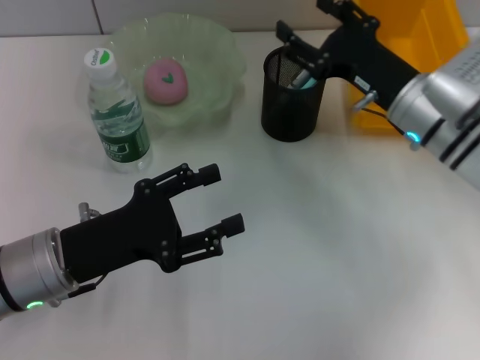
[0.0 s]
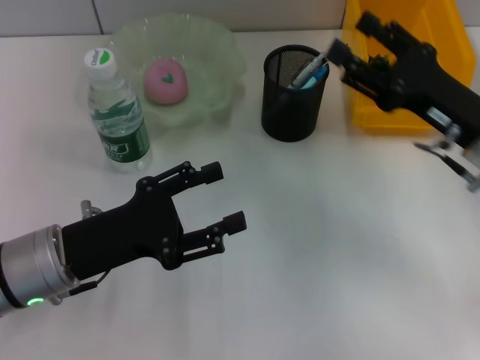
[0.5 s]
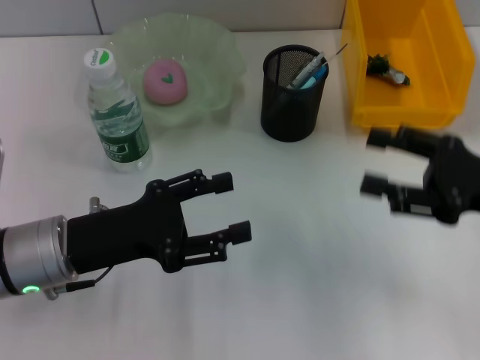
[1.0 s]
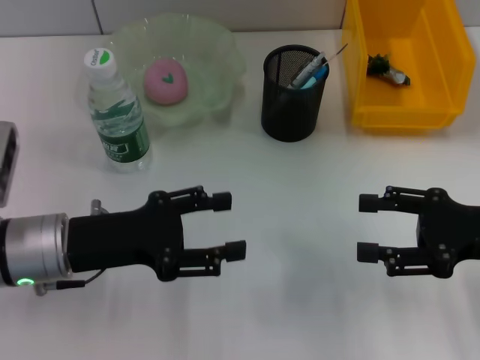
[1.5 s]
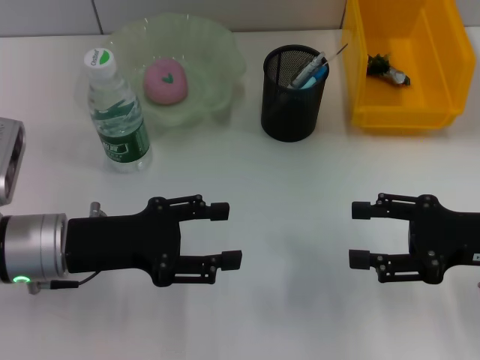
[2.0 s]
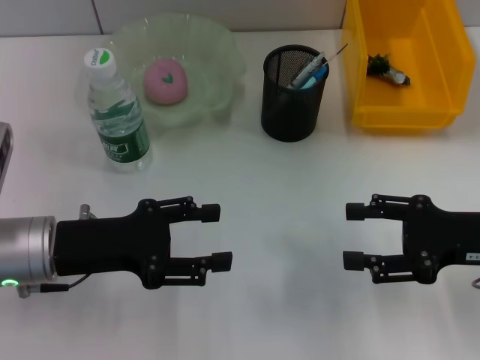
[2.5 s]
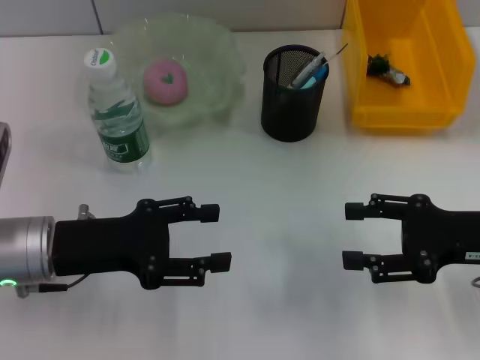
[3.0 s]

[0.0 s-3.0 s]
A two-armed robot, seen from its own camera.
0.0 to 1.5 s: The right gripper shifts roughly 15 cm to the right and backward.
1.5 to 3.0 s: The two grippers keep their place.

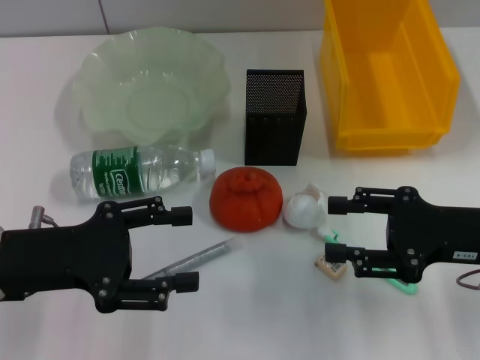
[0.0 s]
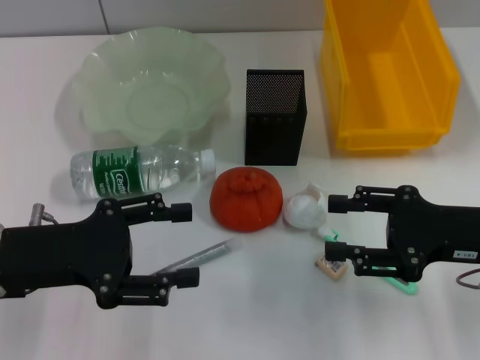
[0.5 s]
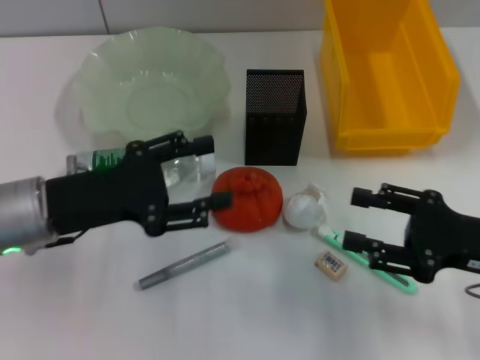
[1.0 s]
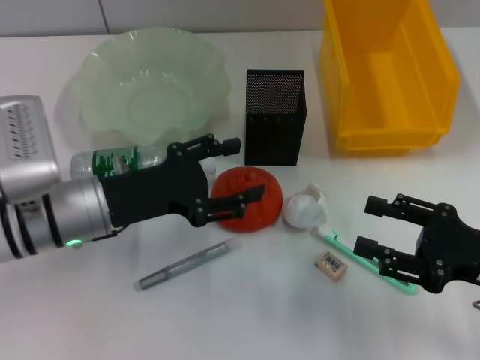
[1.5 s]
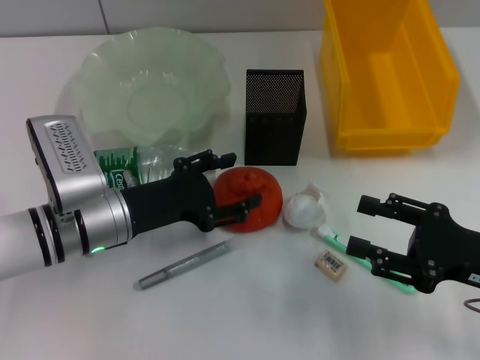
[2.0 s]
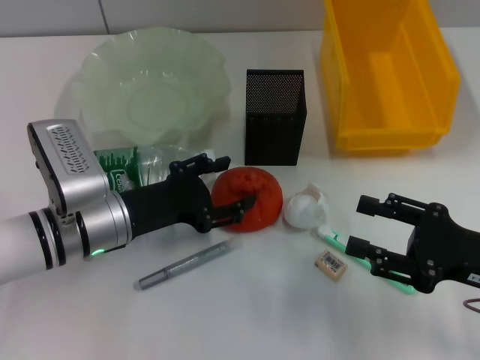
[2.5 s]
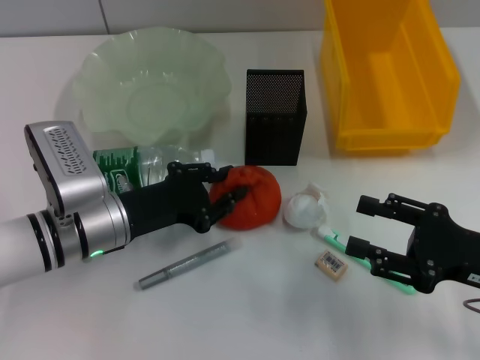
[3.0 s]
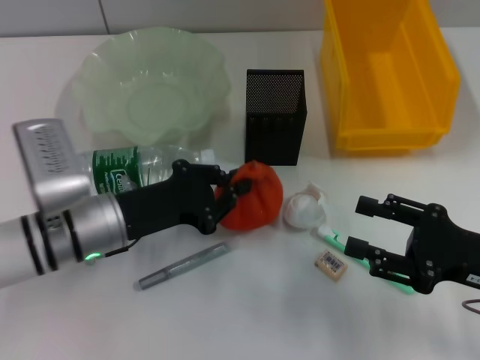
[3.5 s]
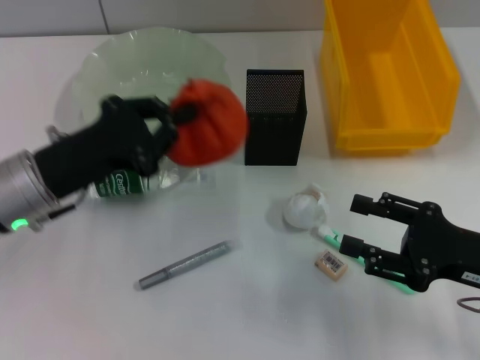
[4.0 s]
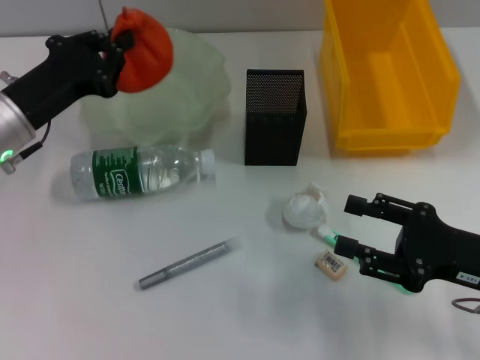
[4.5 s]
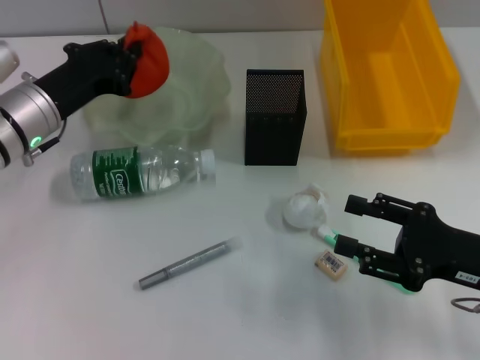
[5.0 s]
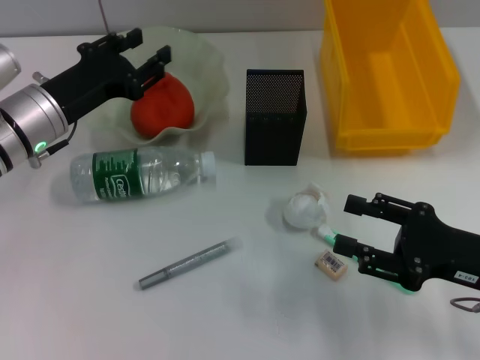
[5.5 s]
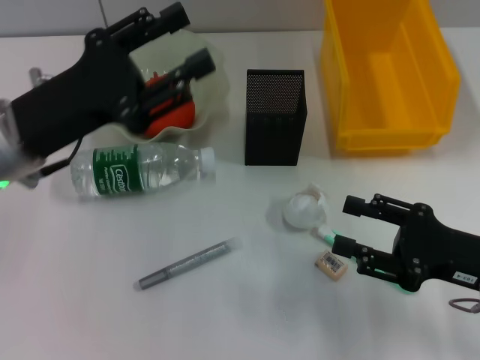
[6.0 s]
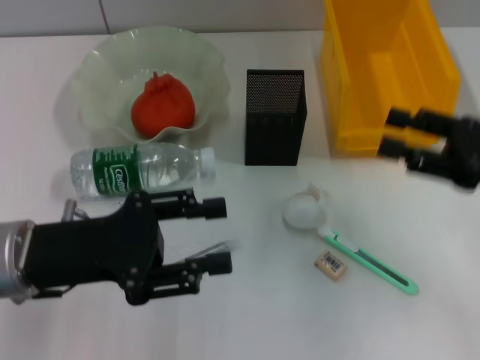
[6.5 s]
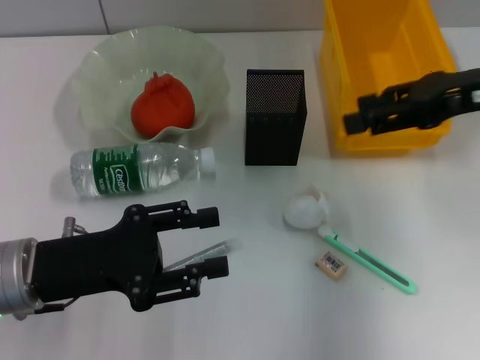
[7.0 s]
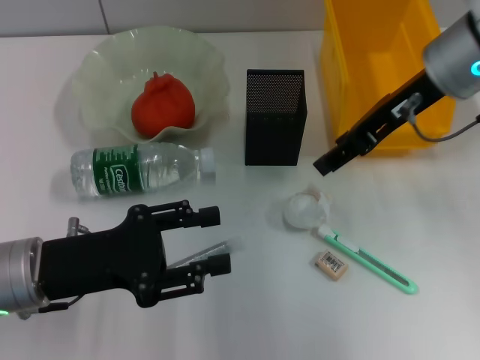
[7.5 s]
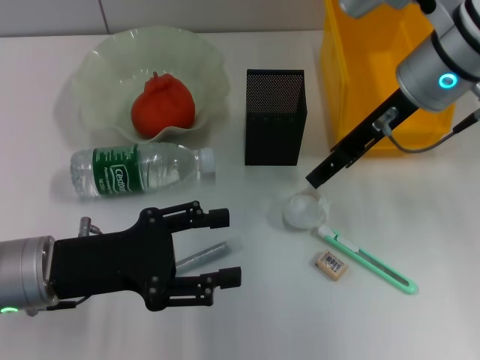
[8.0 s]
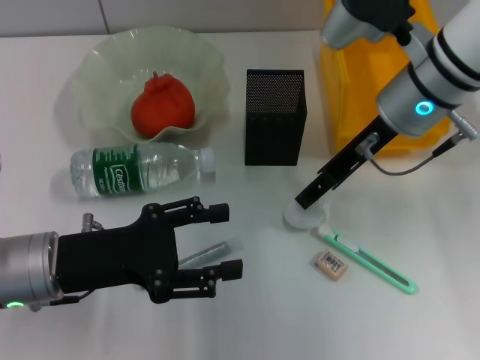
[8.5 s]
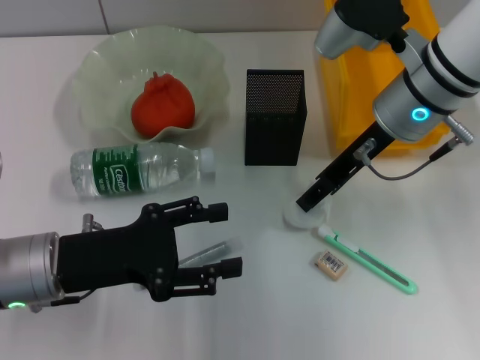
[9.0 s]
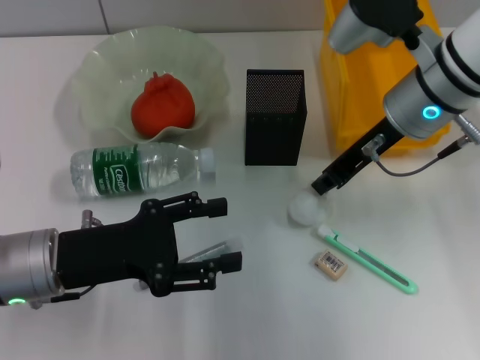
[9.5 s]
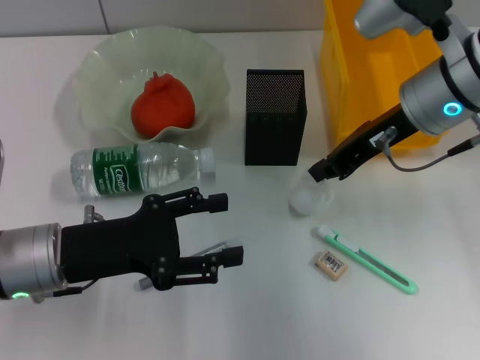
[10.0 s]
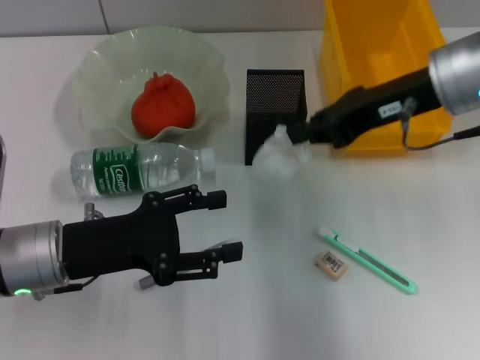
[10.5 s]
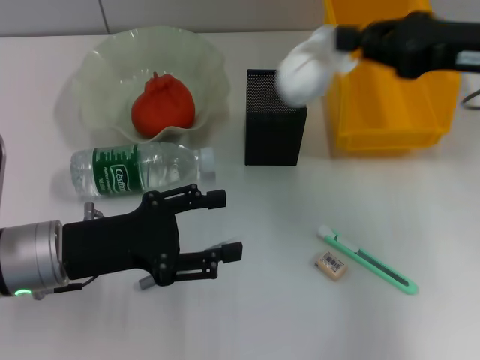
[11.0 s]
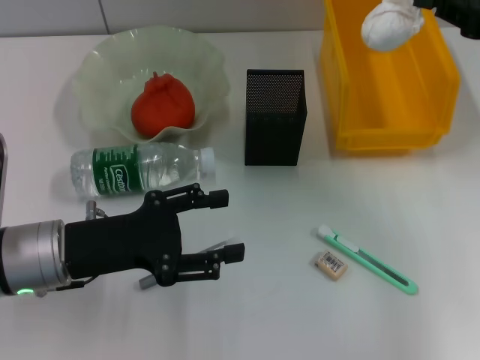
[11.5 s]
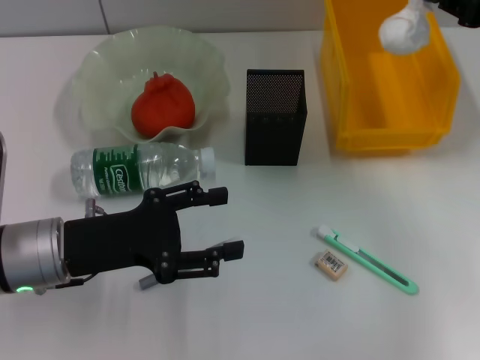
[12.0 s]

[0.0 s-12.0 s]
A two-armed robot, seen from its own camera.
Step, 0.0 to 3.0 s: Grab the orange with the left hand.
Step, 3.5 to 5.0 s: Place the orange into the fruit bowl with the left hand.
Step, 5.5 to 9.5 s: Grab the paper ball with the right hand.
0.0 to 2.0 s: The left gripper travels to the right, downward and forward by roughly 10 cm; the right gripper moves roughly 5 cm.
2.0 to 4.0 s: The left gripper is displaced upward by approximately 5 cm, and closes.
4.0 to 6.0 s: The left gripper reaches roughly 10 cm forward, then returns, and opens.
6.0 to 8.0 s: The right gripper travels forward, upward and to the left by about 25 cm; the left gripper shifts approximately 10 cm downward and backward.
8.0 to 10.0 s: The right gripper closes up.
10.0 to 12.0 s: The right gripper goes about 15 cm to the right.

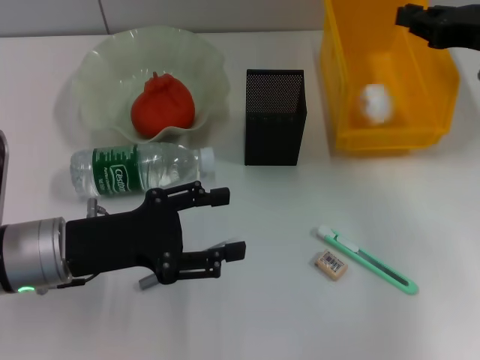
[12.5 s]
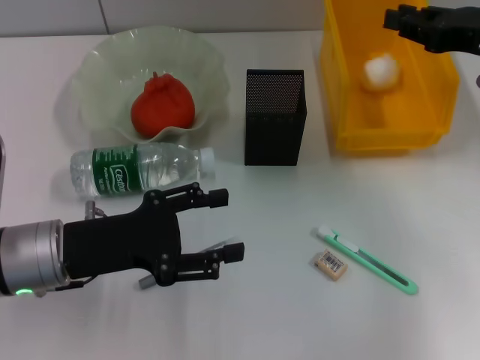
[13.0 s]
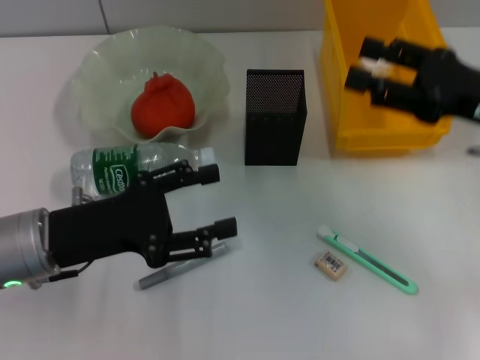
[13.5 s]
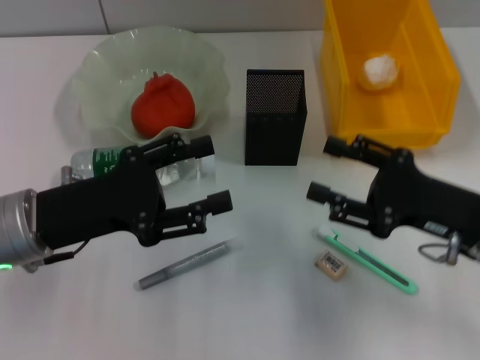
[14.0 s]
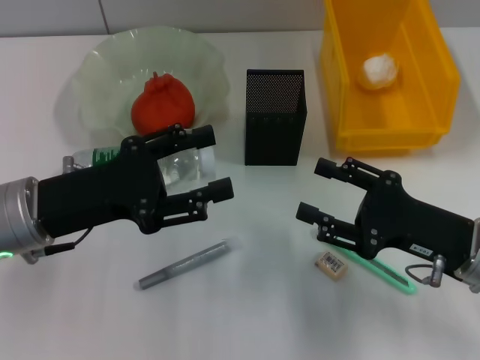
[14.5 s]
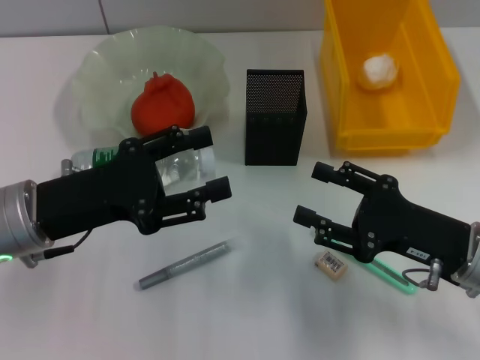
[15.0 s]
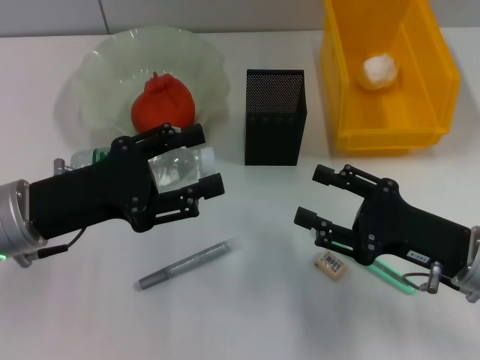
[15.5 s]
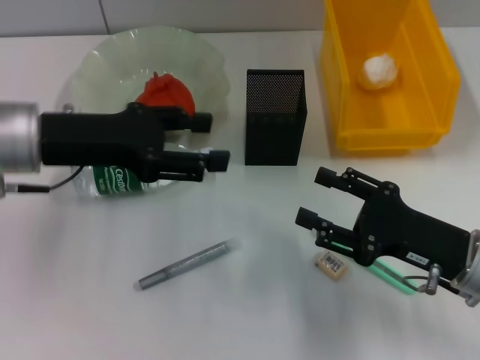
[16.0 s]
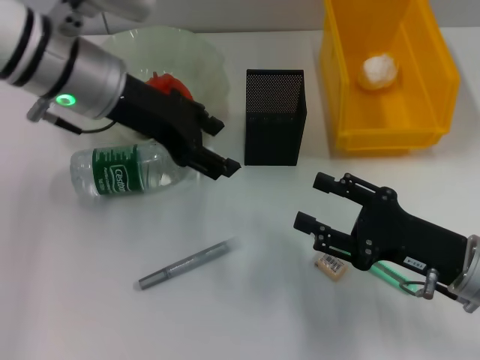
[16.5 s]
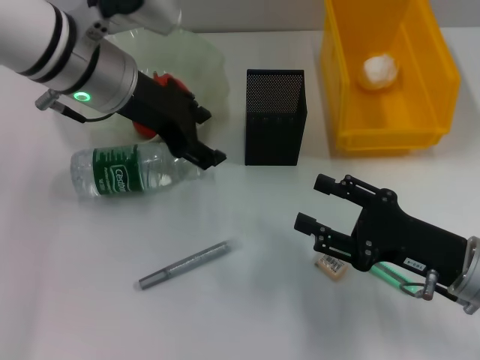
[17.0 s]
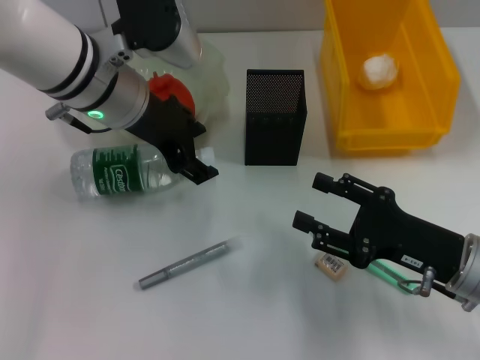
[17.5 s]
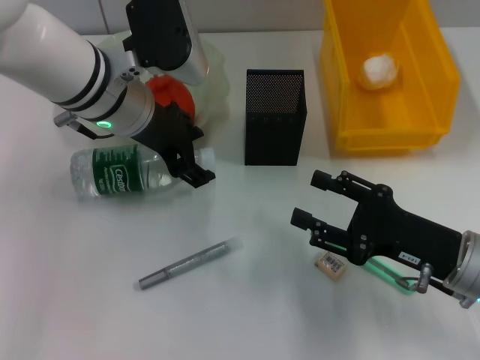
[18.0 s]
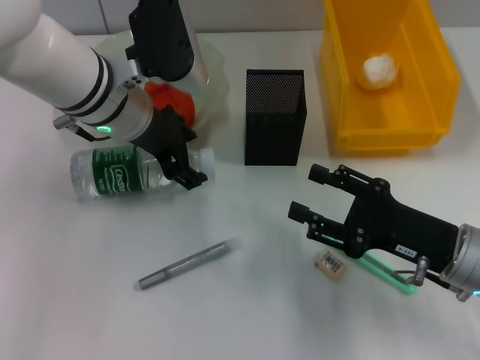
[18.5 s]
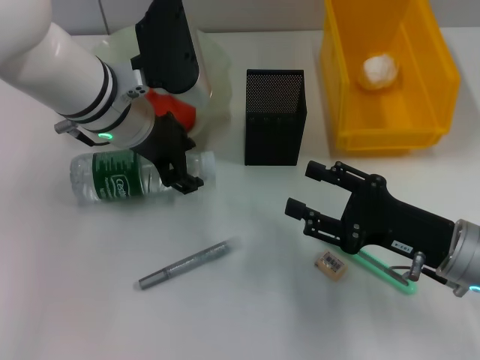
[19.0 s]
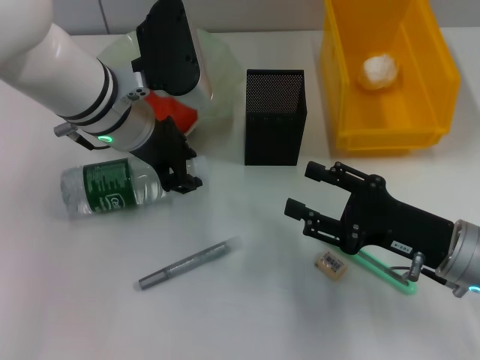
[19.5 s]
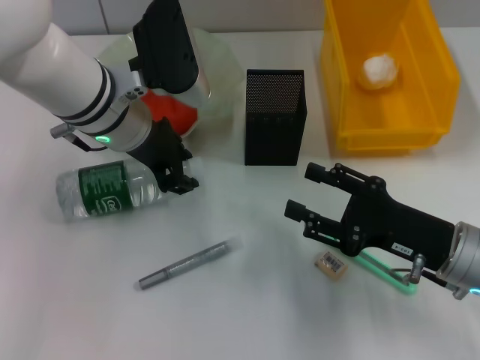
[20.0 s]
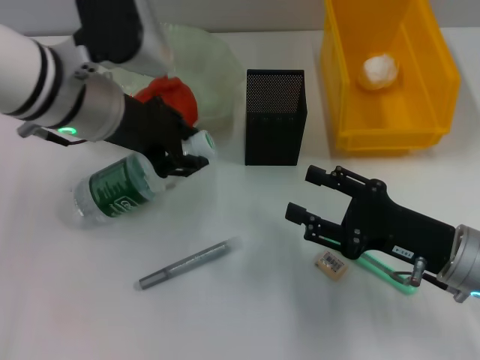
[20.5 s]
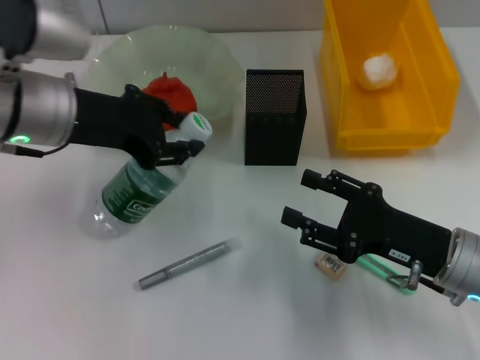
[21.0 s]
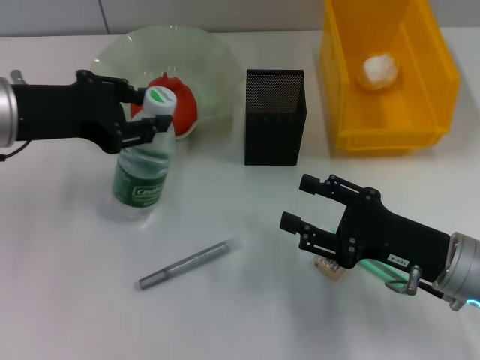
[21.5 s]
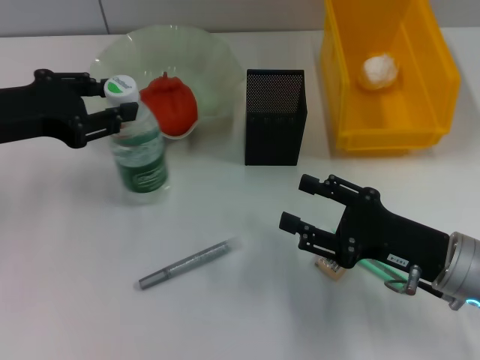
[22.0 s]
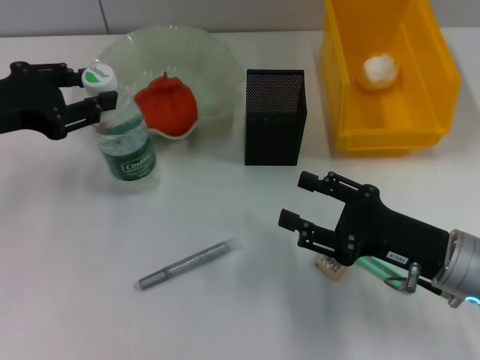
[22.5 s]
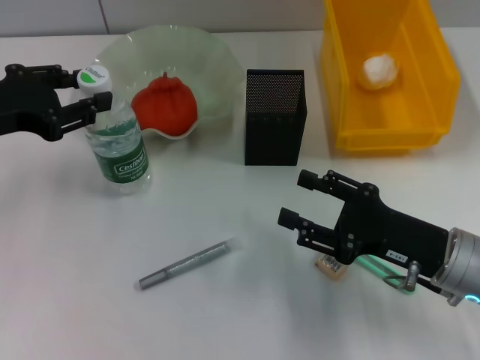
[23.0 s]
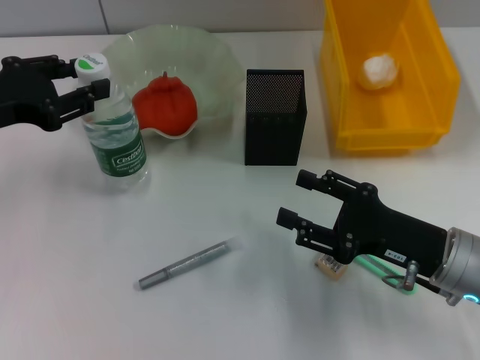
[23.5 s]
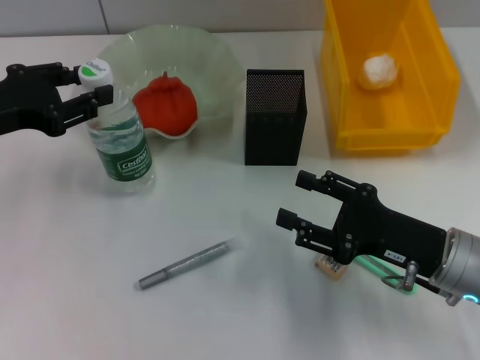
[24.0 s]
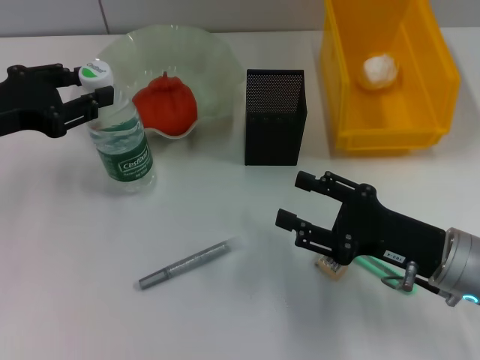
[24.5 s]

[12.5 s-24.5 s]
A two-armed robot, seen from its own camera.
Step, 13.0 to 20.0 s: Grab the water bottle with the left hand.
12.5 to 14.5 s: The right gripper travels backward, downward and to the left by about 20 cm, and opens.
14.5 to 16.5 s: The left gripper heads forward, upward and to the right, covering roughly 15 cm.
16.5 to 18.5 s: The left gripper moves about 5 cm.
18.5 to 20.5 s: The left gripper changes place by approximately 5 cm, and closes up.
20.5 to 22.5 s: The left gripper travels to the left by roughly 15 cm.
22.5 to 24.5 s: There are only small adjustments of the grippers.
